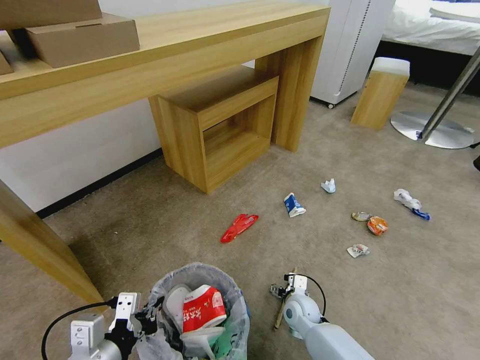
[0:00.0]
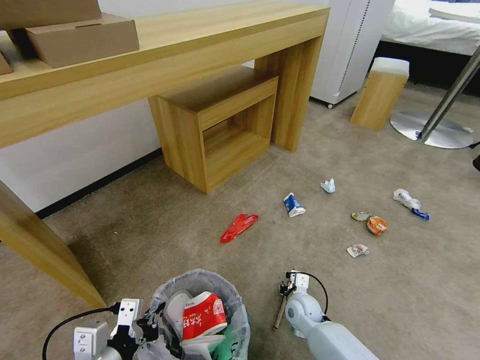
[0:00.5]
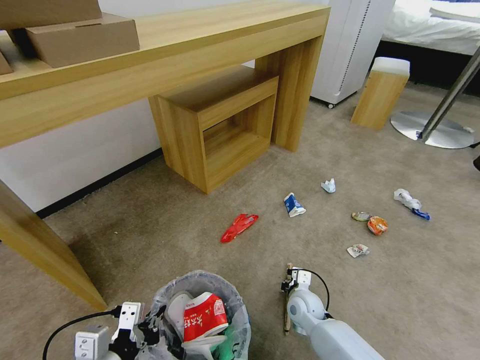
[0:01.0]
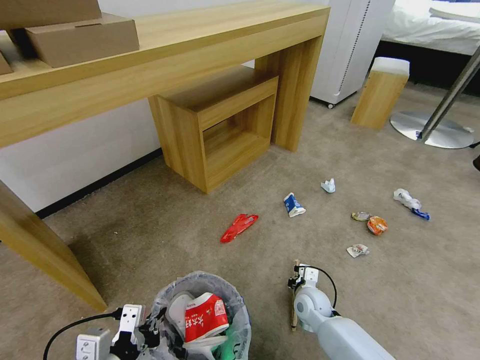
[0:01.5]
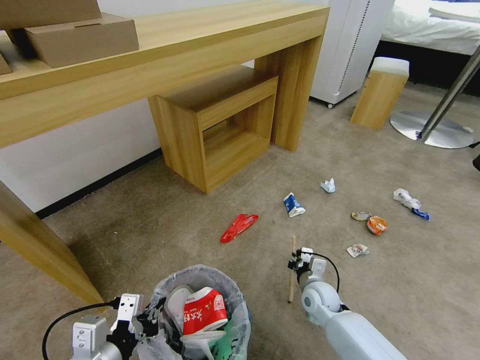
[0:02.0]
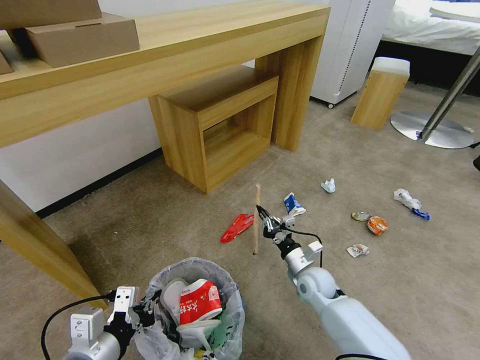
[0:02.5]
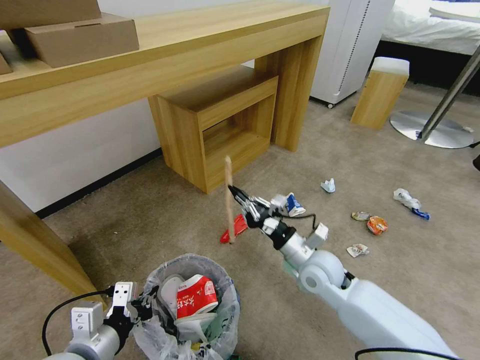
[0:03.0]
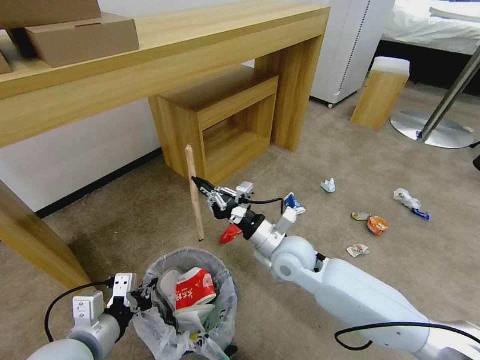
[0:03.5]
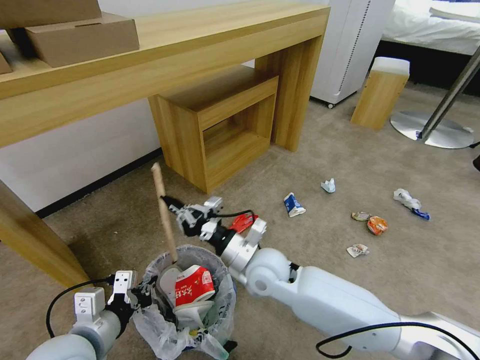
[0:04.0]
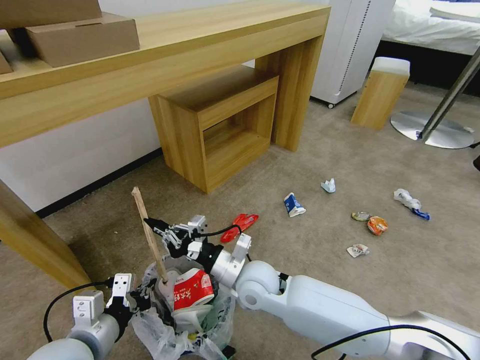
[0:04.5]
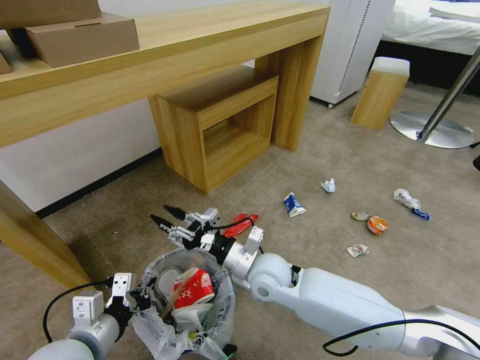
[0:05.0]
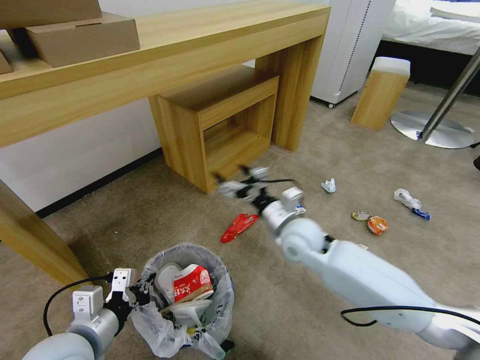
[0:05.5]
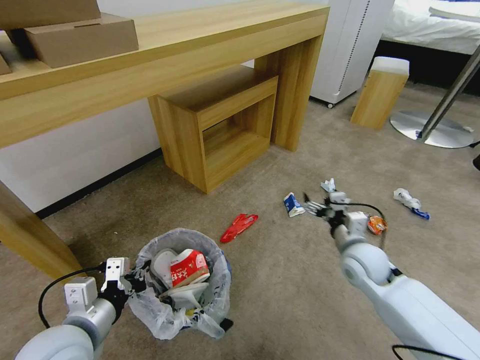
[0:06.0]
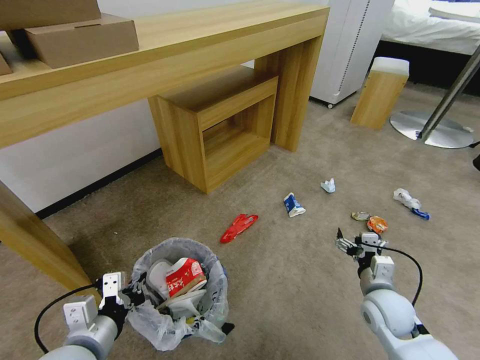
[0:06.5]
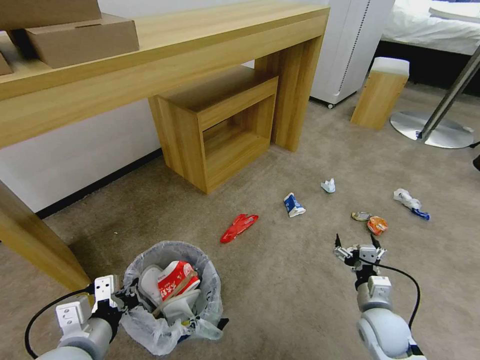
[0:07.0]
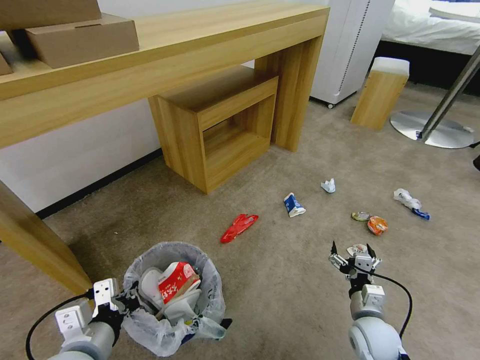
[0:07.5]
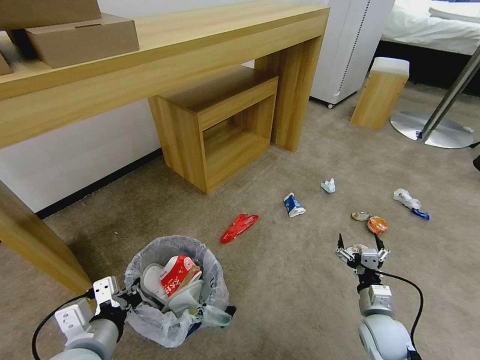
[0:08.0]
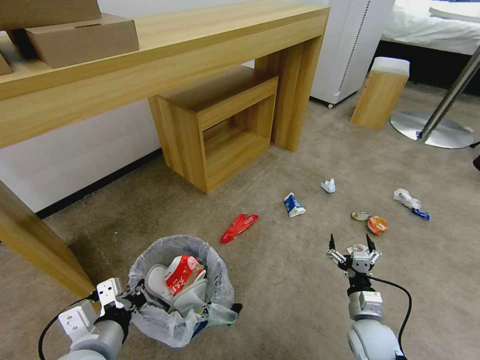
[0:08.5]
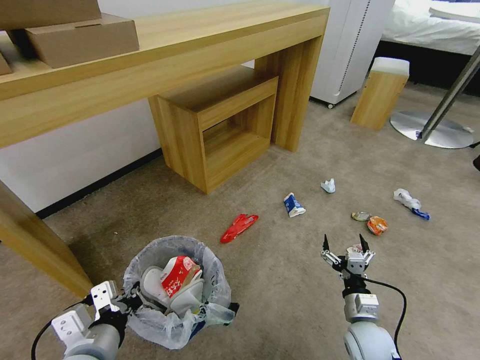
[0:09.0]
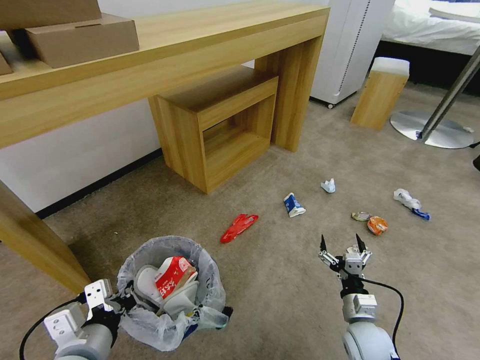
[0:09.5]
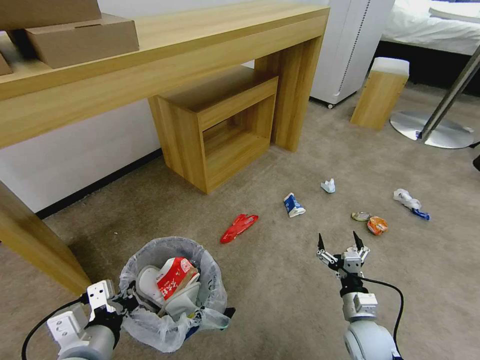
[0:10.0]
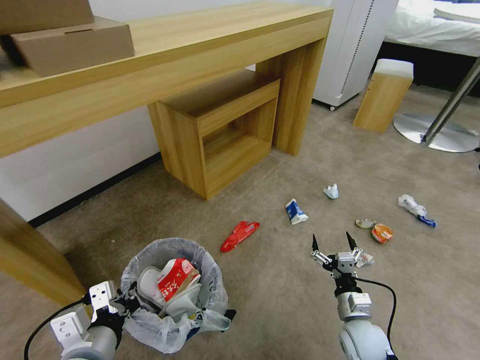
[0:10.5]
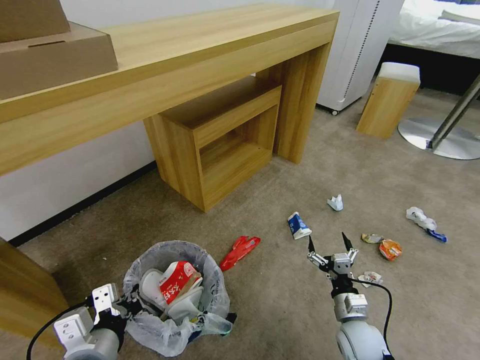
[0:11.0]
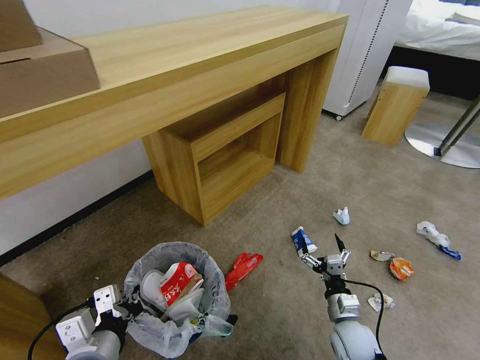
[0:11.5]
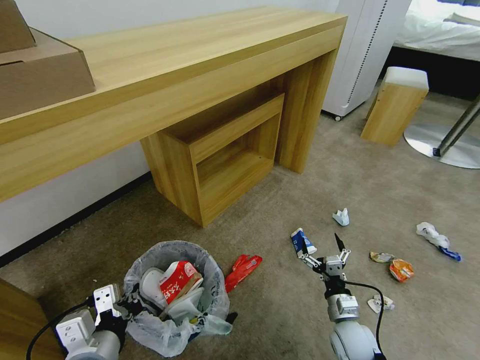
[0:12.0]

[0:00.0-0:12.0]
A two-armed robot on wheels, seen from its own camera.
Task of the whole recording: Pick up the trash bin and place the garbage on the floor into it.
0:00.0 to 0:02.0: The right gripper moves some 5 cm, and closes.
0:02.0 to 0:04.0: The left gripper heads forward, covering some 5 cm. The right gripper shifts about 25 cm upward and to the left.
0:04.0 to 0:06.0: The right gripper goes about 25 cm to the right, and opens its fingers.
0:06.0 to 0:08.0: The right gripper heads backward and downward, covering about 15 cm.
0:08.0 to 0:10.0: The grippers move only a little.

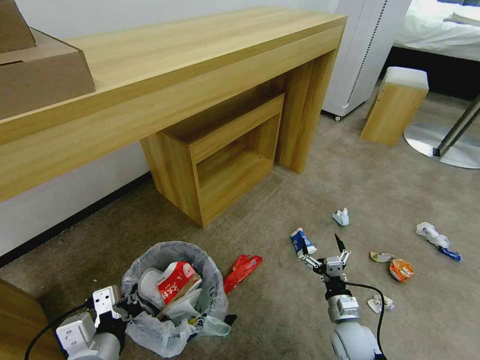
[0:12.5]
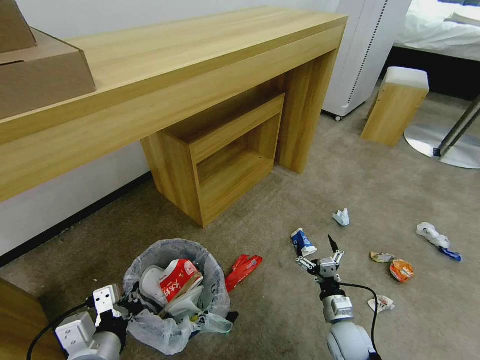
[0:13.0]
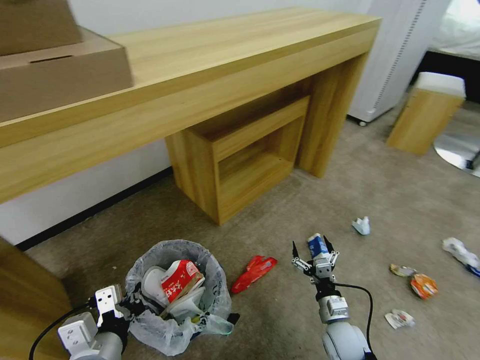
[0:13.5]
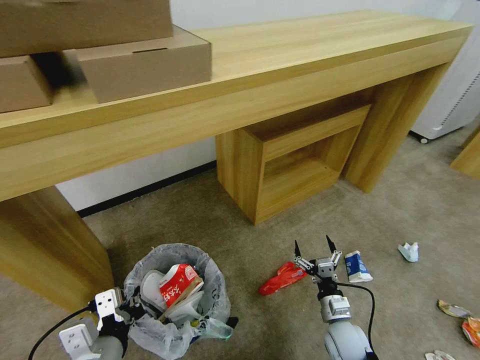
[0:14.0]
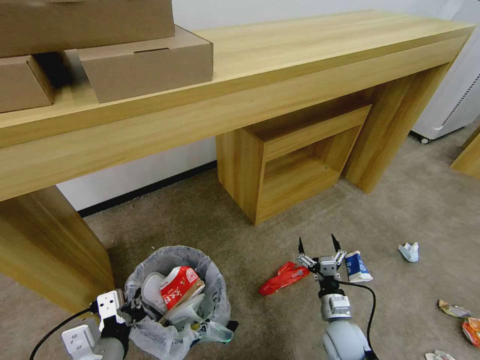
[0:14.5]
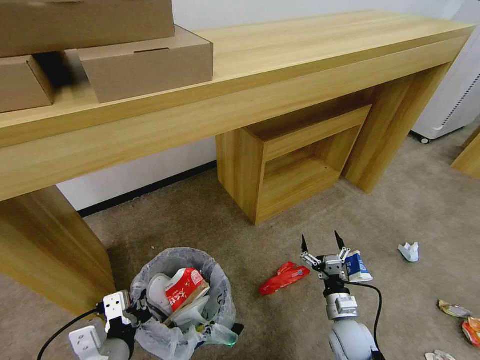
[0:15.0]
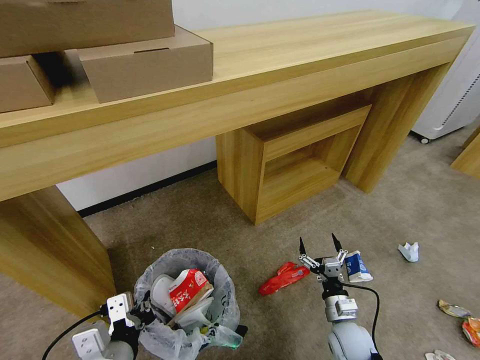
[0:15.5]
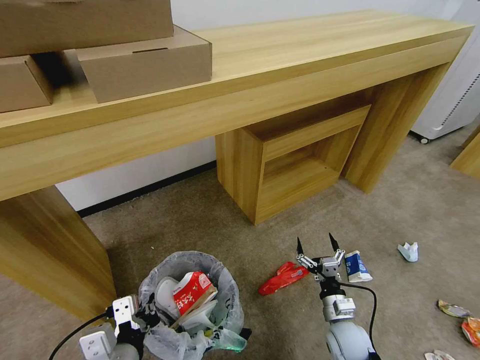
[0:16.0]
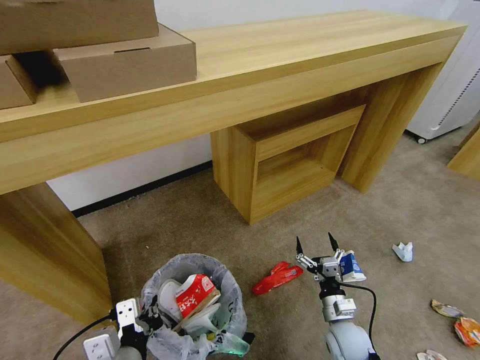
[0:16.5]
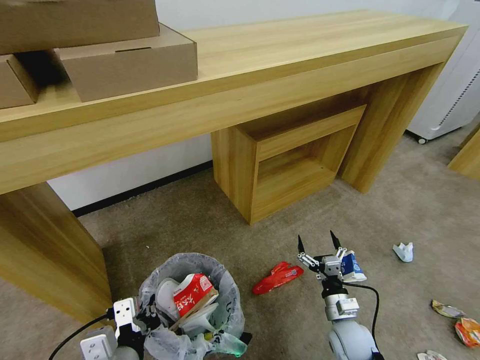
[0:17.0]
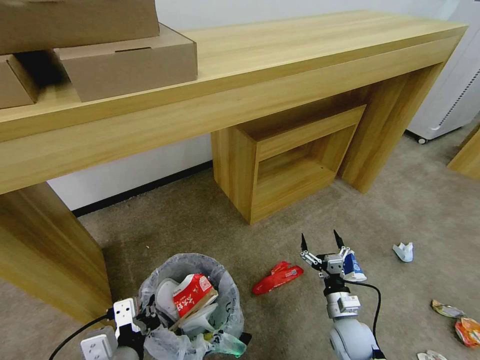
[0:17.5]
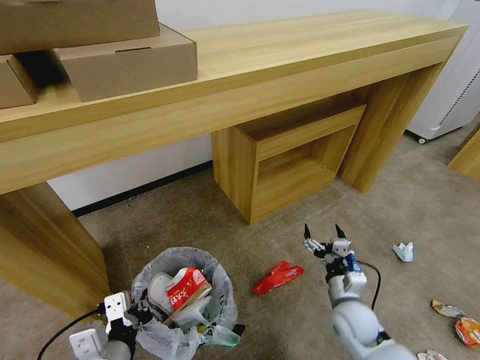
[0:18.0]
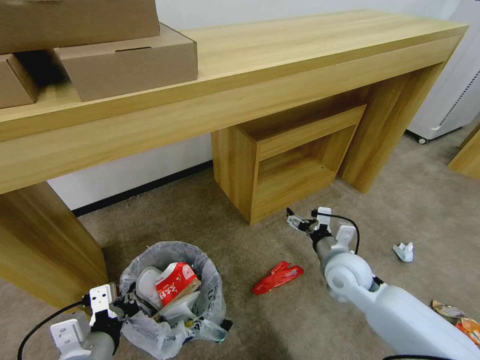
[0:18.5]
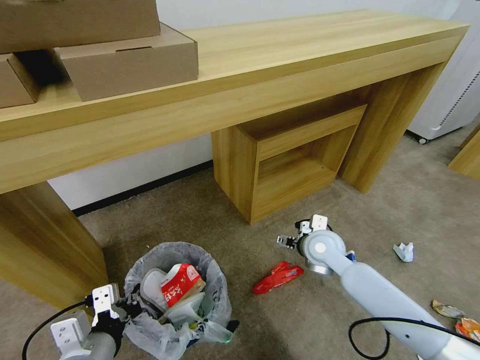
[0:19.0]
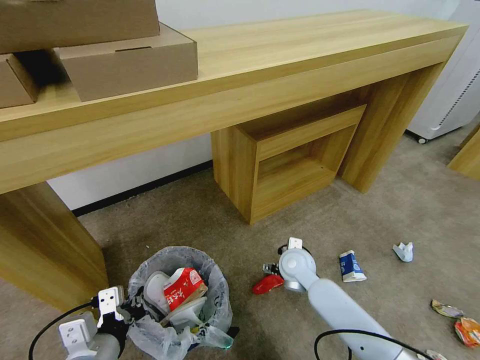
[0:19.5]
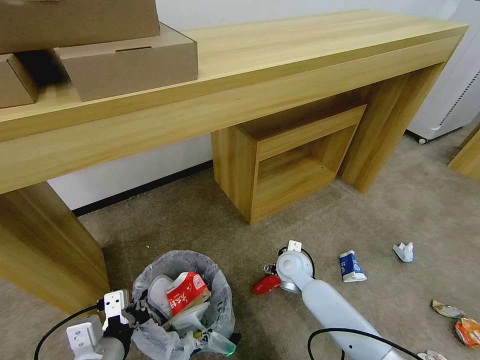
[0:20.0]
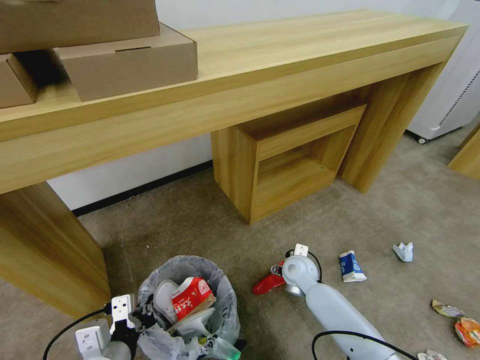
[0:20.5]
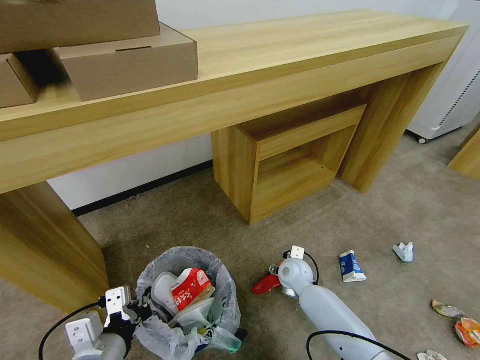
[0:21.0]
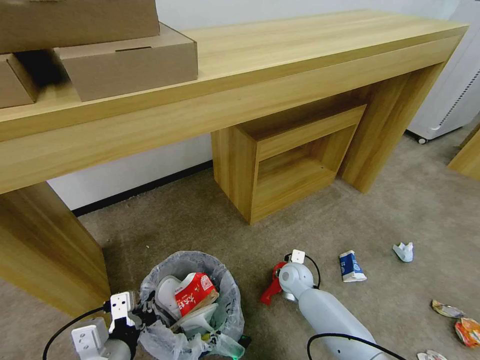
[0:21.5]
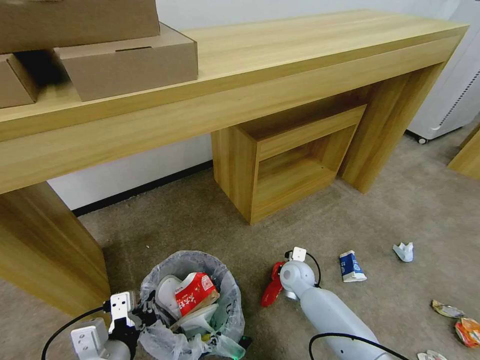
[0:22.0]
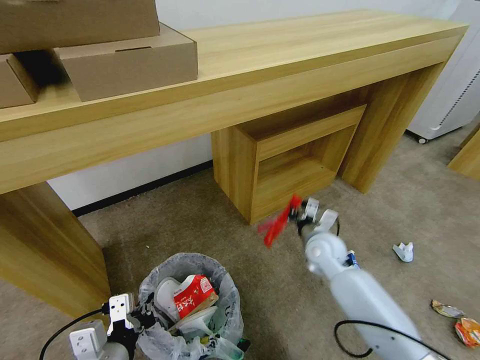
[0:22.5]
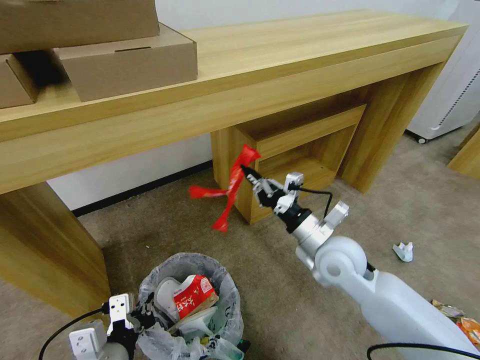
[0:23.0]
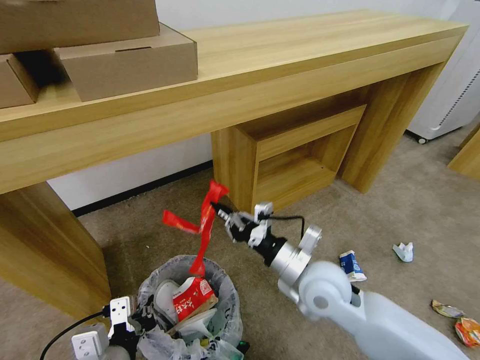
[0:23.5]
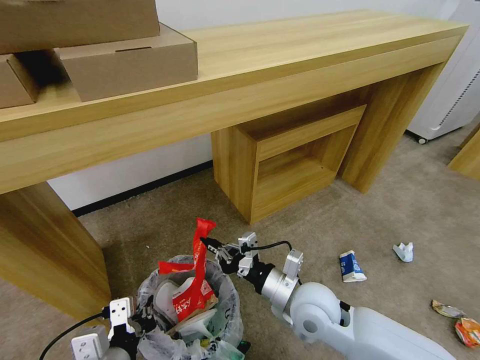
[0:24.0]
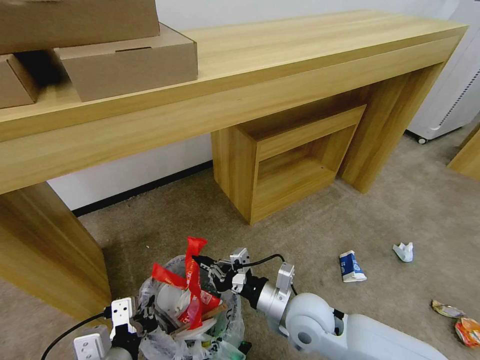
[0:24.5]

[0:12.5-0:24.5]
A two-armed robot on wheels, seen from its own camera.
Task of the whole recording: Pick up the trash bin and place the garbage on the floor into it.
0:14.5 to 0:16.5: The grippers move only a little.
0:16.5 to 0:18.5: The right gripper moves upward and forward, some 20 cm. The left gripper changes place by some 5 cm.
0:18.5 to 0:20.5: The right gripper shifts roughly 15 cm downward, to the left and forward.
0:20.5 to 0:22.5: The right gripper goes about 10 cm upward, and closes.
0:22.5 to 0:24.5: The right gripper shifts some 20 cm backward and to the left.

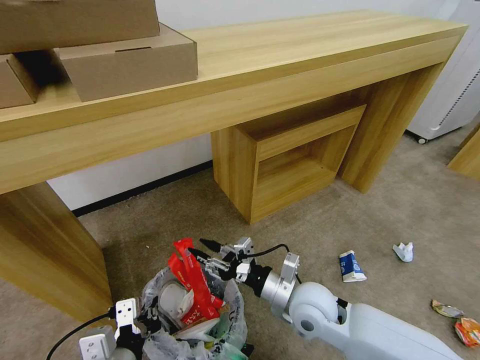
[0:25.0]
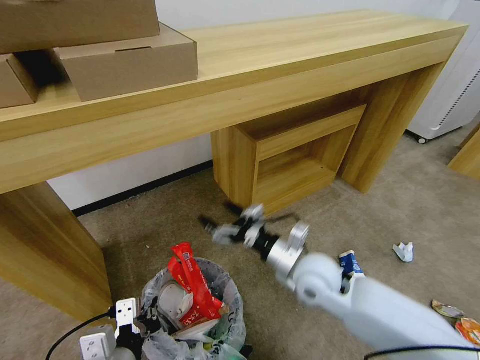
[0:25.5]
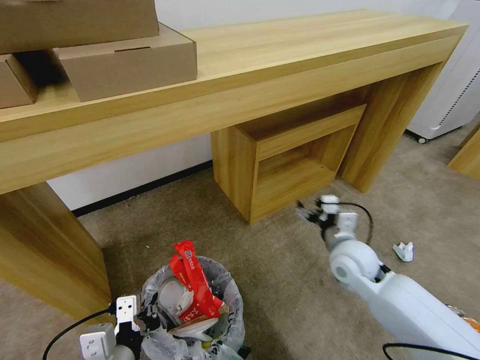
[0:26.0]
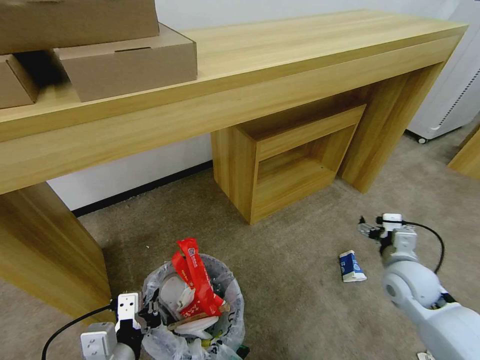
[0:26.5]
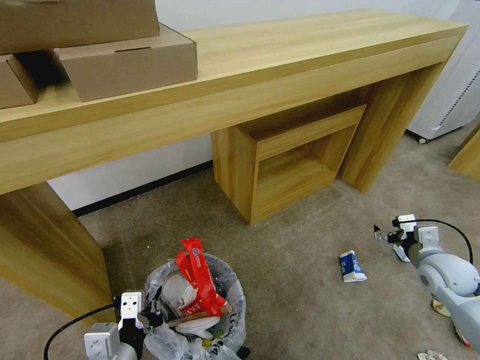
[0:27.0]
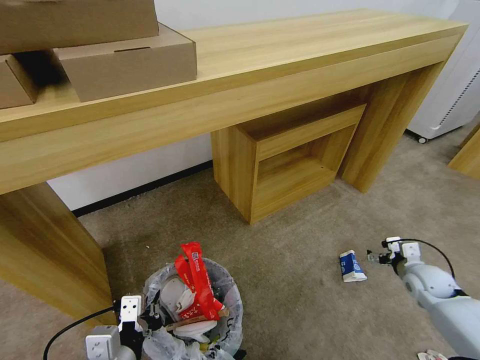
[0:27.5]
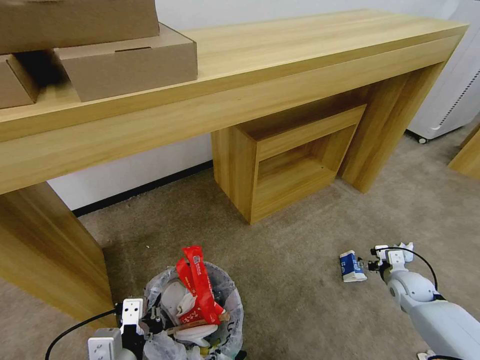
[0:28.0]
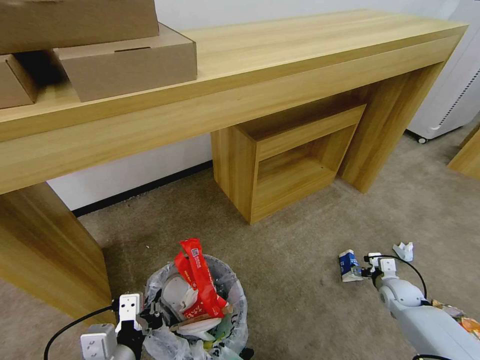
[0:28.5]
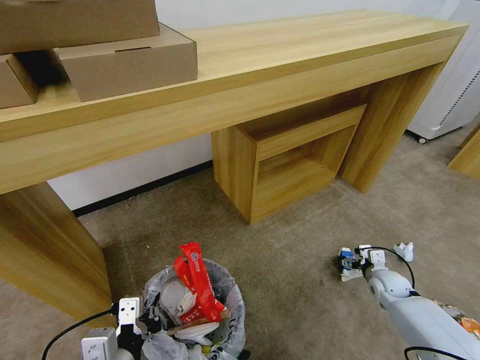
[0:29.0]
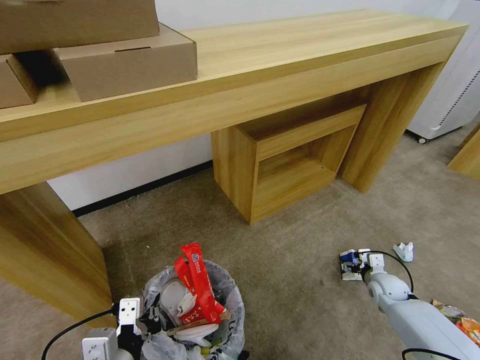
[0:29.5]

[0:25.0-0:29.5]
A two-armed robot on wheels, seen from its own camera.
Task of the whole recording: Pick up the trash bin and place the garbage on the floor into it.
0:25.0 to 0:27.0: The right gripper goes roughly 30 cm to the right, and opens.
0:27.0 to 0:29.5: The right gripper travels downward by about 20 cm.
